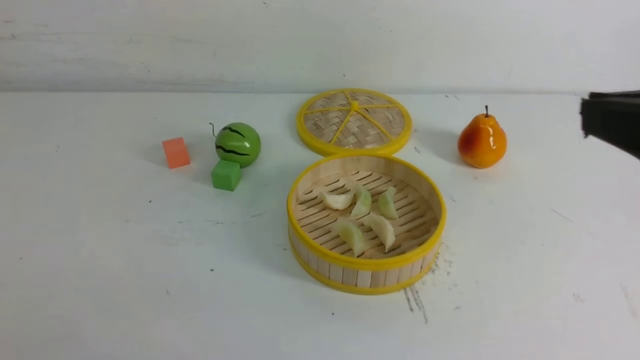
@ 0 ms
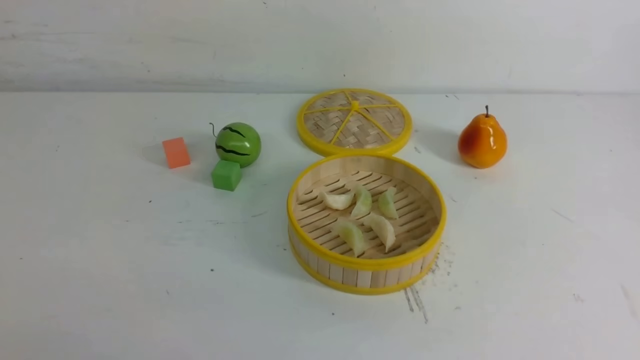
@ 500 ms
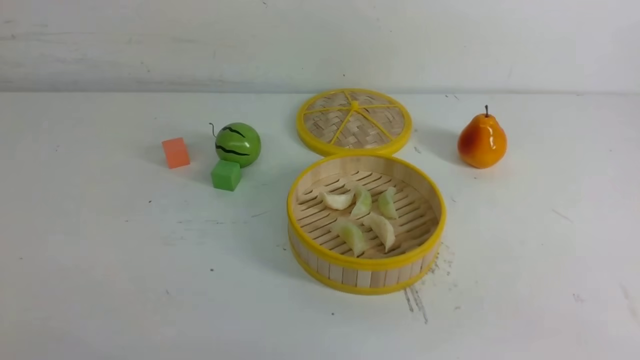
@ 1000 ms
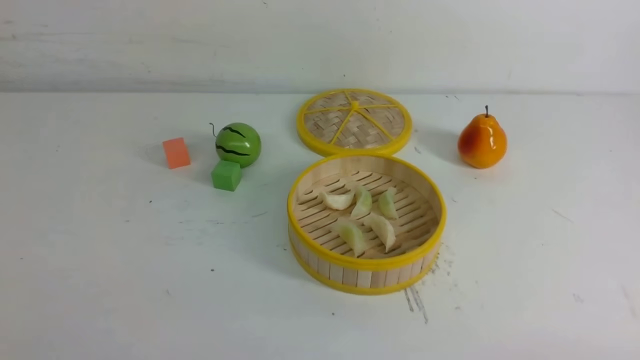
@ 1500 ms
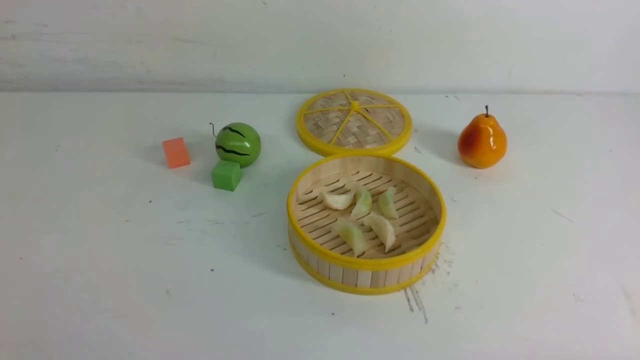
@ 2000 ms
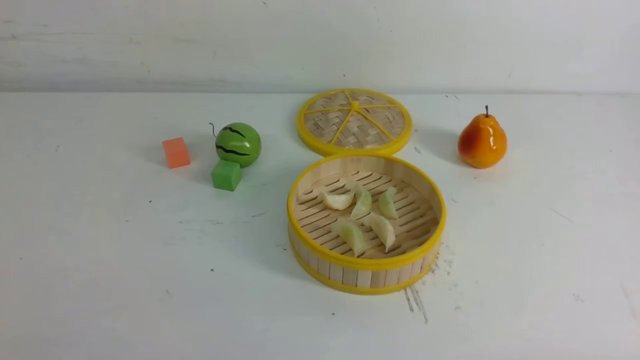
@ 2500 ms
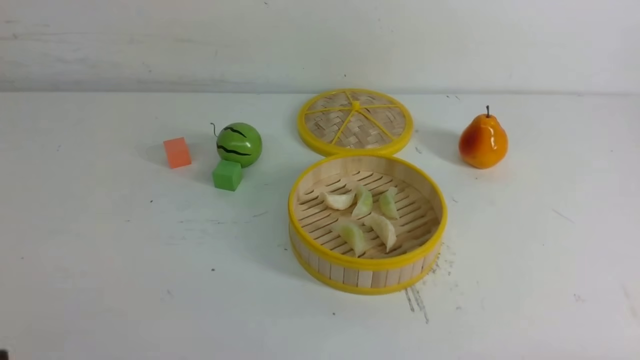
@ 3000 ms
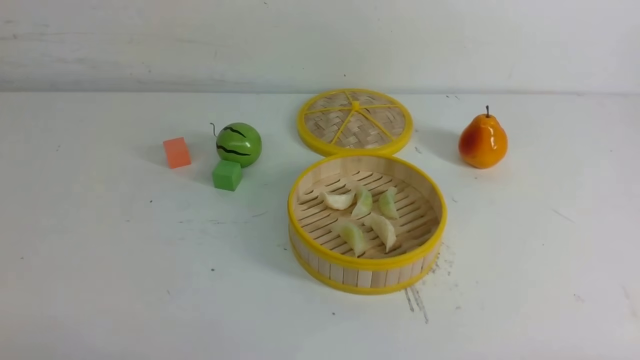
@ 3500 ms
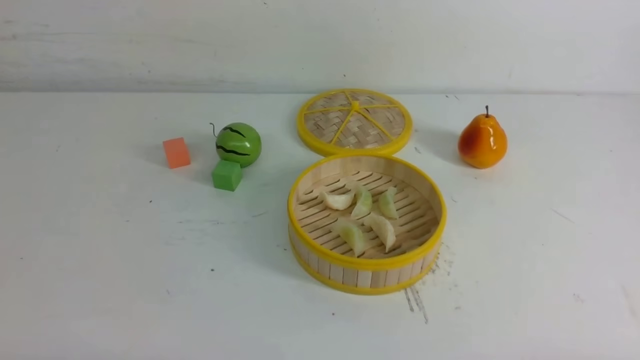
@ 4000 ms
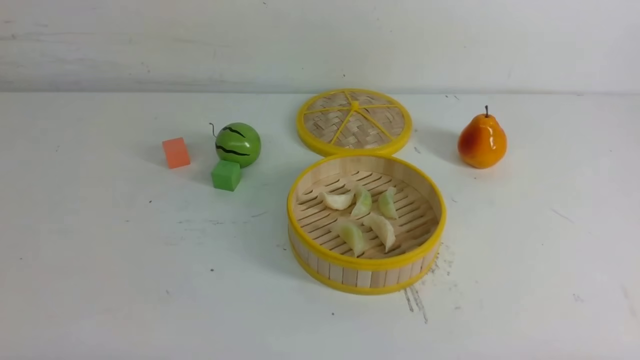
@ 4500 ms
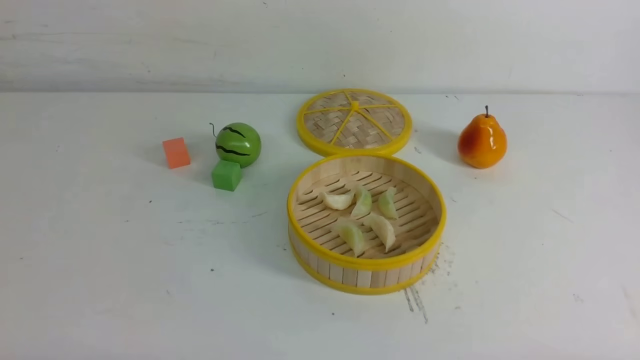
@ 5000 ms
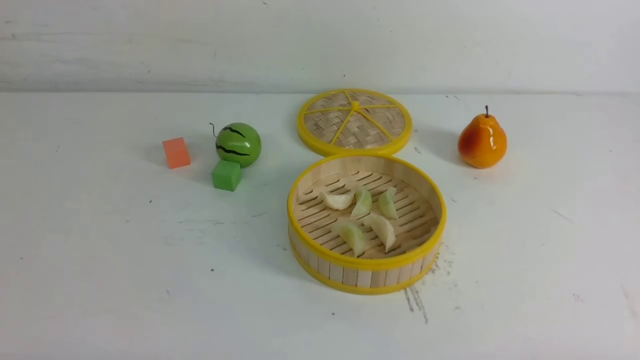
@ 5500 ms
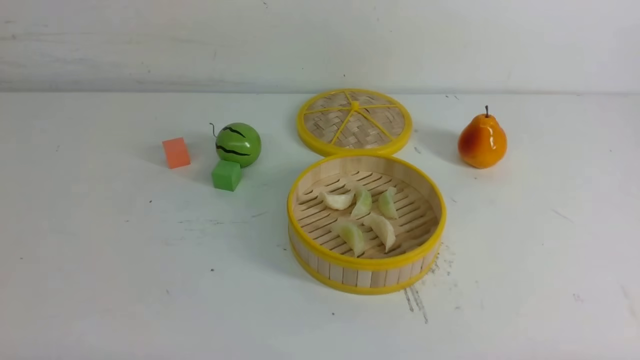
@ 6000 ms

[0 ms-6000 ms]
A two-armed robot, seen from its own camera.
Task of the whole recording: put the dumplings into the steamer on the white table.
0 ms to 2000 ms: The right gripper moves downward, approximately 25 cm.
4000 ms to 6000 ms: The two grippers keep their place.
